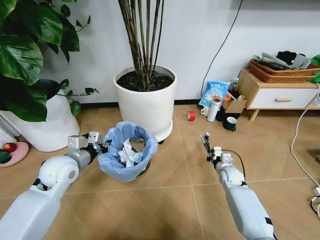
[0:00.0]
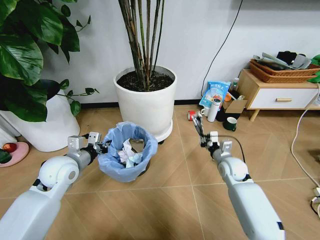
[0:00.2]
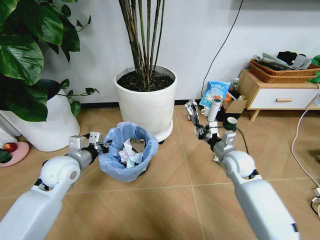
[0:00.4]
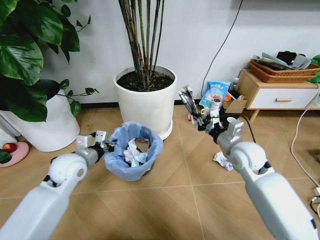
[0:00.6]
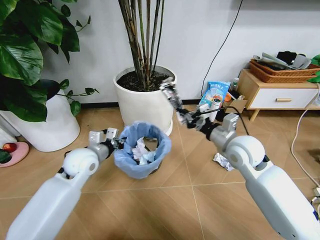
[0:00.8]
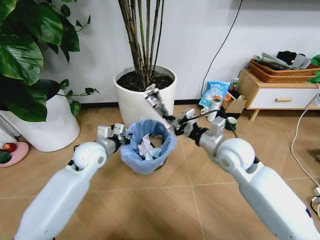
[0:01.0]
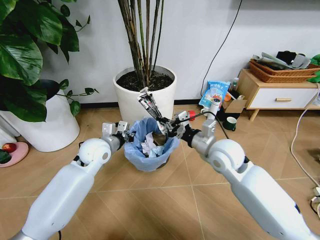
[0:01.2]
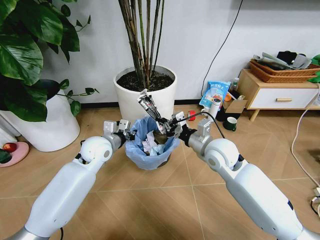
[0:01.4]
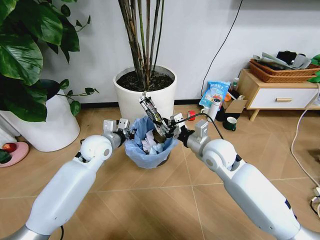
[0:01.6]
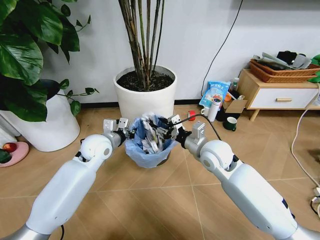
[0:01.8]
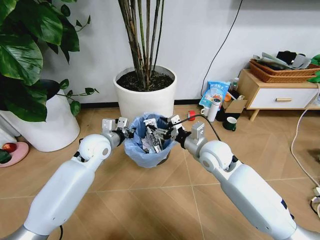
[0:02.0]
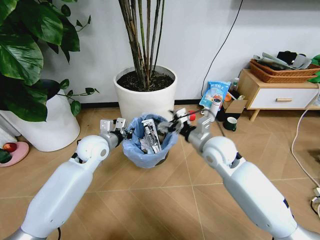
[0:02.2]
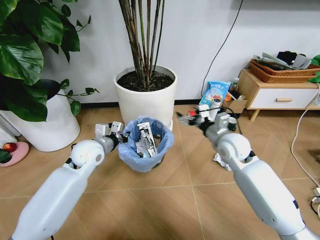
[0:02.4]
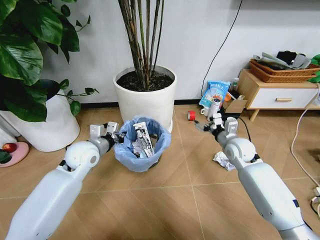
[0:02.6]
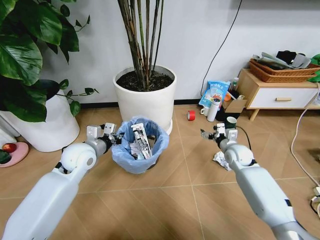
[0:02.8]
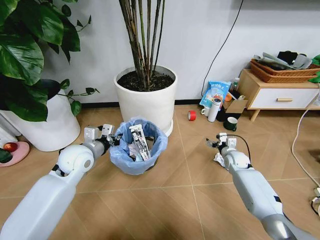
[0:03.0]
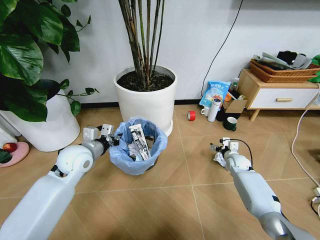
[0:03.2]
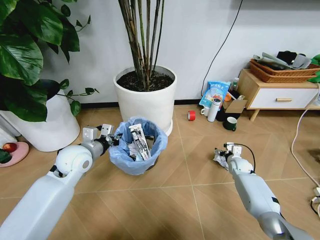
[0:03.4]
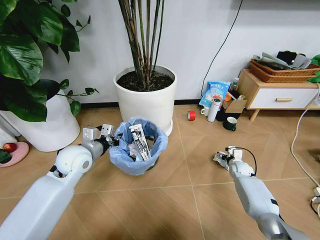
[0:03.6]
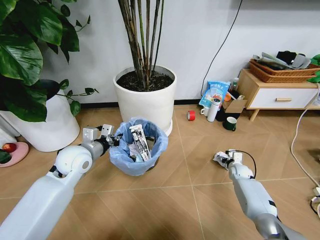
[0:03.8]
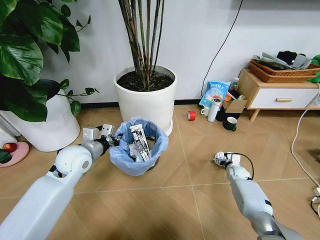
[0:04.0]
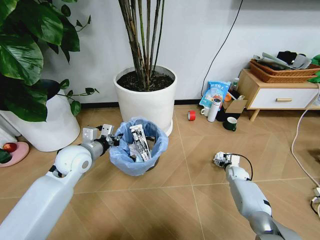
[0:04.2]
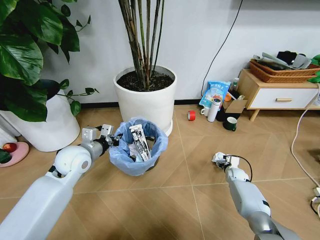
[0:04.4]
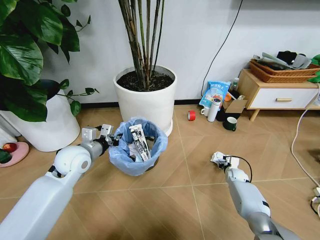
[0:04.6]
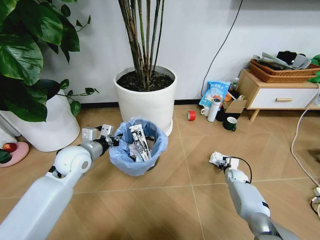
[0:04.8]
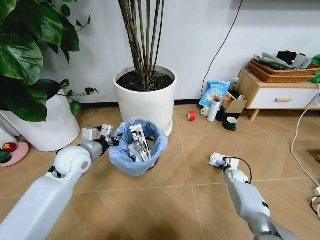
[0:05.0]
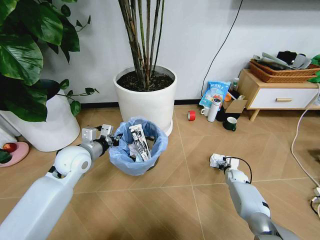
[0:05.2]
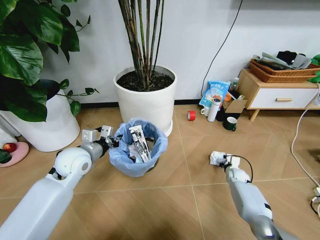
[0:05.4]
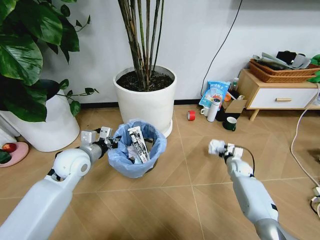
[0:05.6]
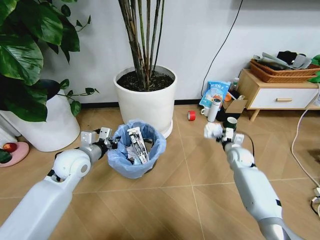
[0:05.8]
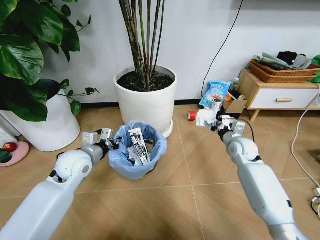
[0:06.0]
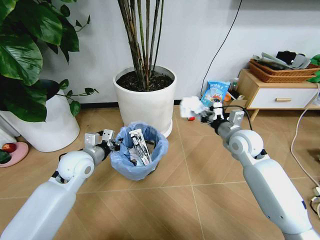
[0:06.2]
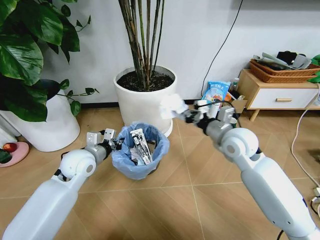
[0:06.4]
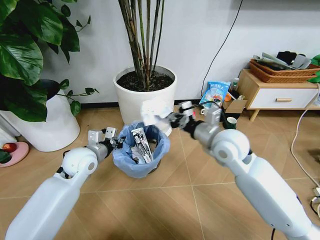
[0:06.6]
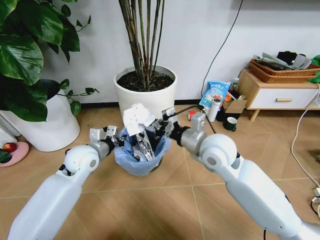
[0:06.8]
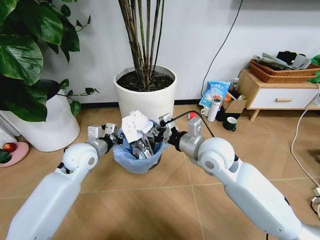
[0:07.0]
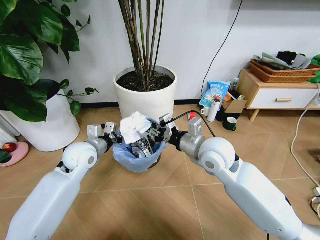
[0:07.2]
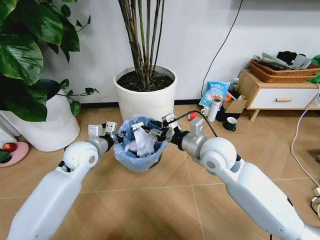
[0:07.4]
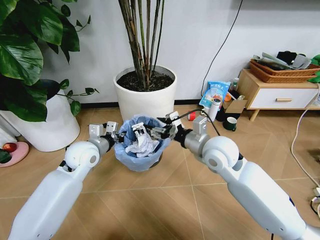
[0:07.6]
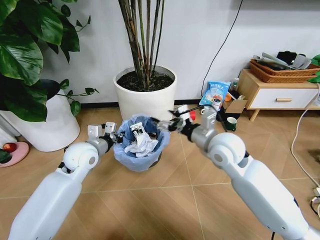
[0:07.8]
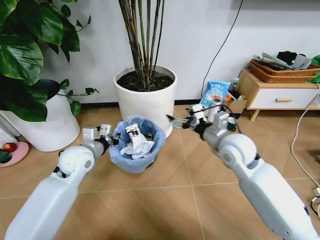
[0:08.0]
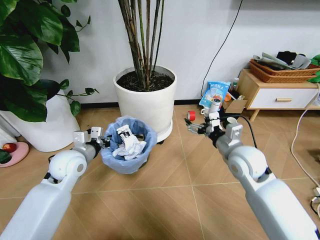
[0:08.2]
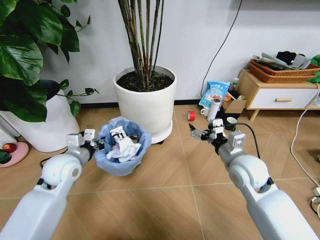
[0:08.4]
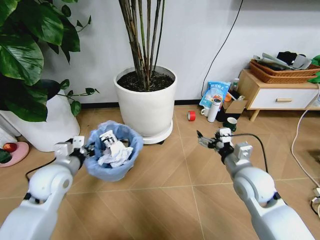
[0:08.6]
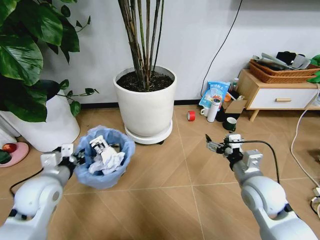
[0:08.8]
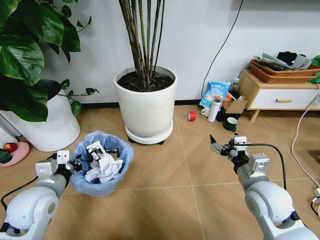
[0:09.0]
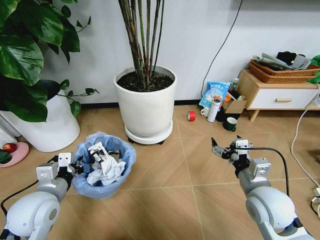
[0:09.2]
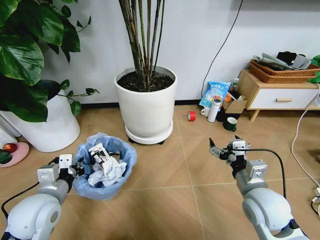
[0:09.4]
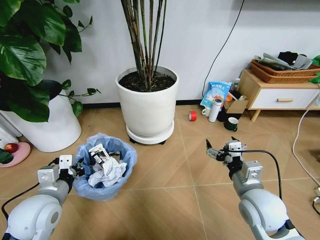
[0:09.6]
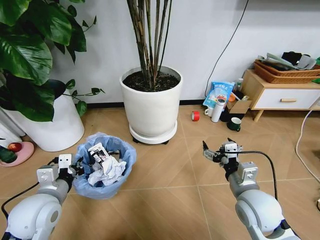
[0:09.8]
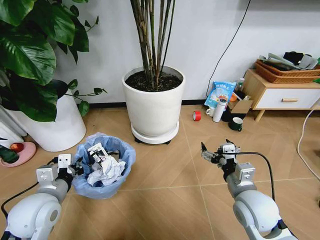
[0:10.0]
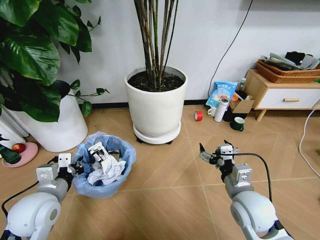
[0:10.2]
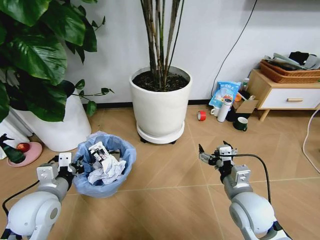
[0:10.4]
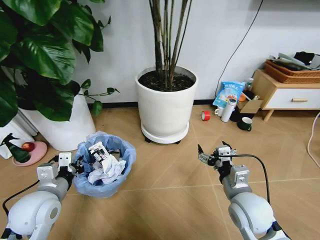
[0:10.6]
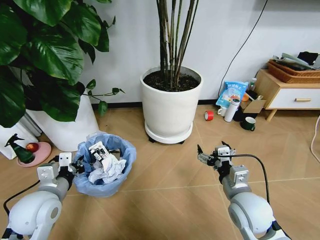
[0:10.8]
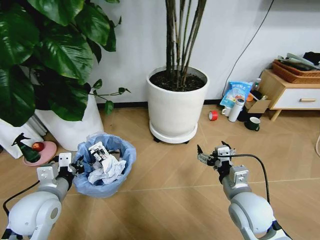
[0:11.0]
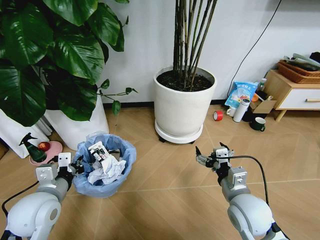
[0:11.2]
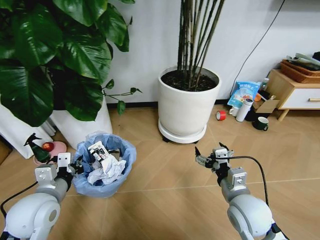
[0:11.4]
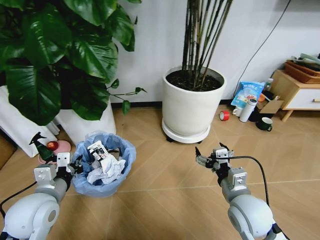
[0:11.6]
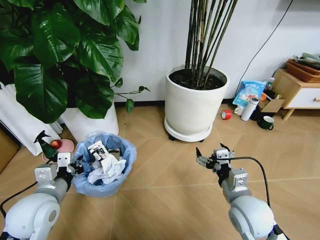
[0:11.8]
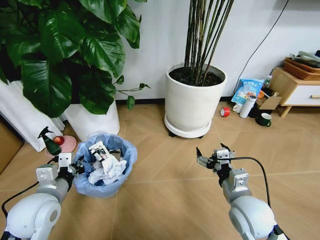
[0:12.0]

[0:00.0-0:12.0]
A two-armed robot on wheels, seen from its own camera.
Task of the whole recording: Pick up the trash bin and place the garbage on the floor into it.
0:00.0 to 0:01.6: The left gripper goes approximately 10 cm to the right and forward. The right gripper shifts about 30 cm upward and to the left.
0:01.6 to 0:03.0: The right gripper moves downward, to the right and forward, about 25 cm, and opens; the left gripper ends up roughly 5 cm from where it was.
0:03.0 to 0:04.4: The right gripper is displaced downward by about 10 cm.
0:04.4 to 0:06.0: The right gripper heads upward, covering approximately 20 cm, and closes its fingers.
0:06.0 to 0:07.6: The right gripper heads to the left, upward and backward, covering some 20 cm, and opens.
0:07.6 to 0:09.0: The left gripper travels backward and to the left by roughly 15 cm. The right gripper shifts about 15 cm to the right, backward and downward.
0:09.0 to 0:10.4: The right gripper shifts by approximately 5 cm.

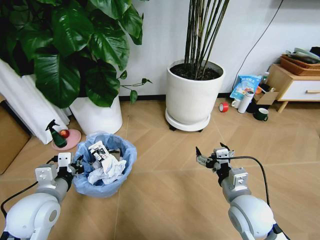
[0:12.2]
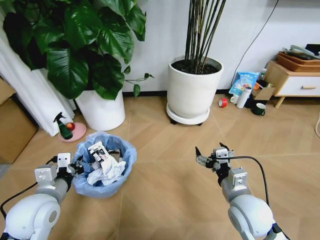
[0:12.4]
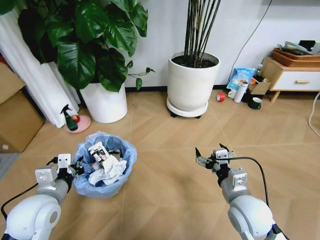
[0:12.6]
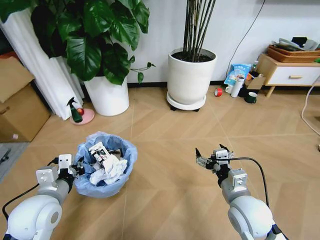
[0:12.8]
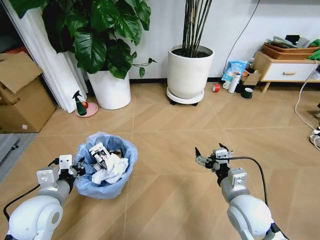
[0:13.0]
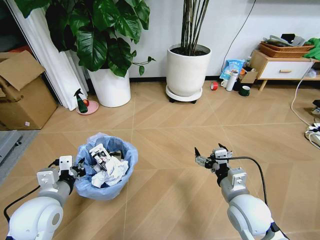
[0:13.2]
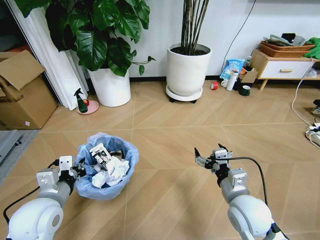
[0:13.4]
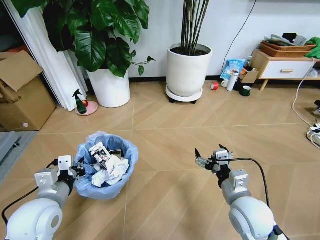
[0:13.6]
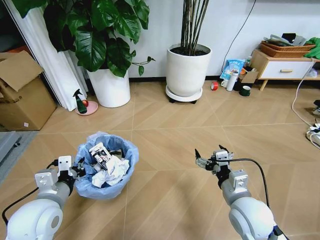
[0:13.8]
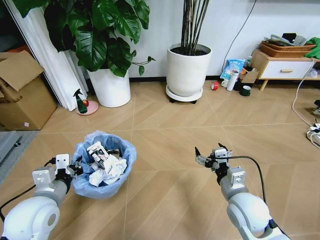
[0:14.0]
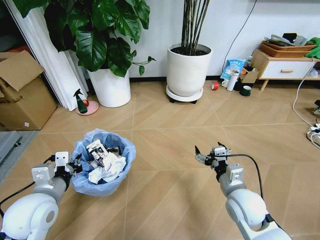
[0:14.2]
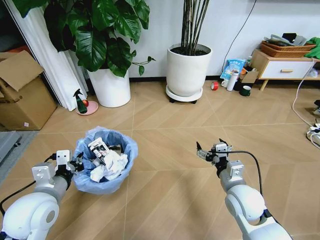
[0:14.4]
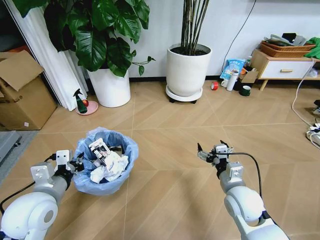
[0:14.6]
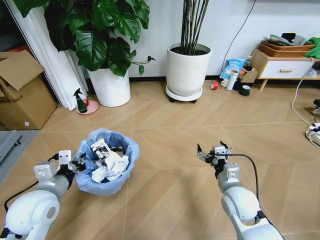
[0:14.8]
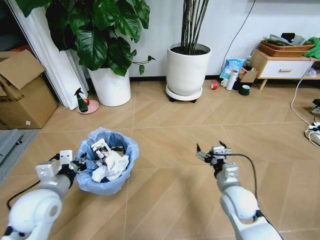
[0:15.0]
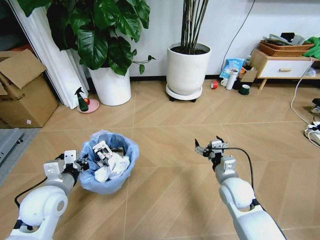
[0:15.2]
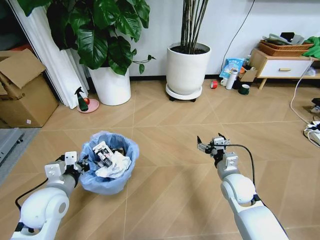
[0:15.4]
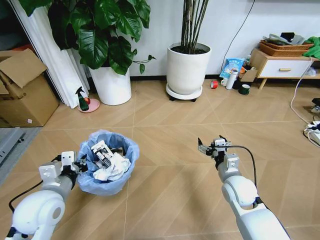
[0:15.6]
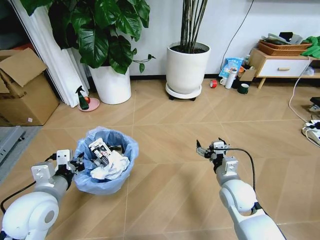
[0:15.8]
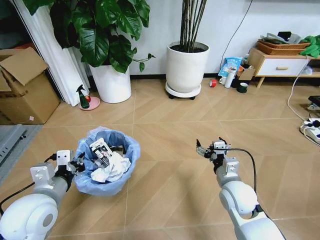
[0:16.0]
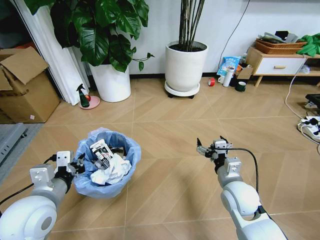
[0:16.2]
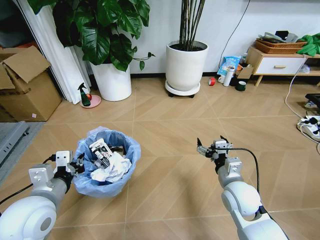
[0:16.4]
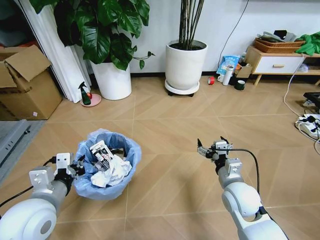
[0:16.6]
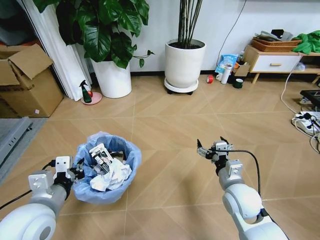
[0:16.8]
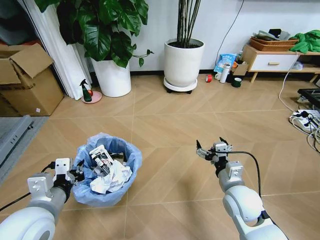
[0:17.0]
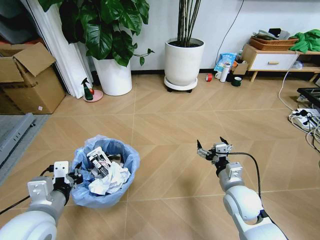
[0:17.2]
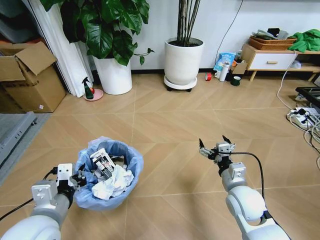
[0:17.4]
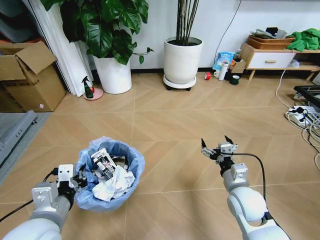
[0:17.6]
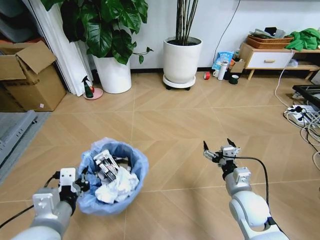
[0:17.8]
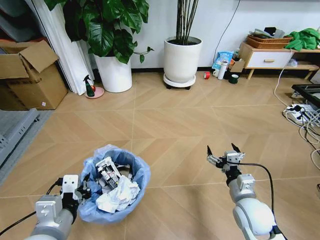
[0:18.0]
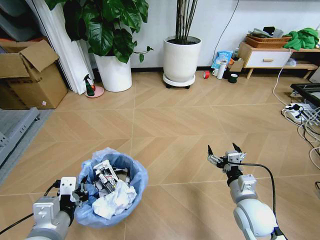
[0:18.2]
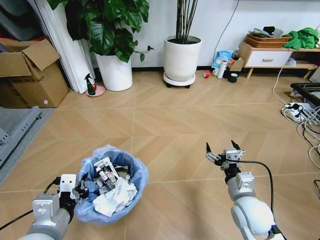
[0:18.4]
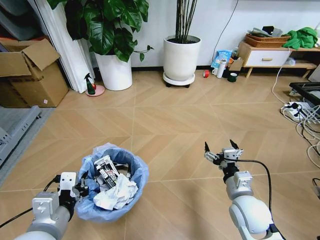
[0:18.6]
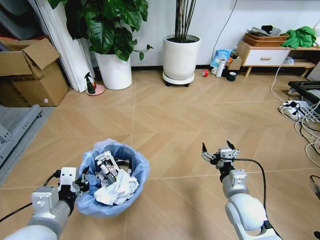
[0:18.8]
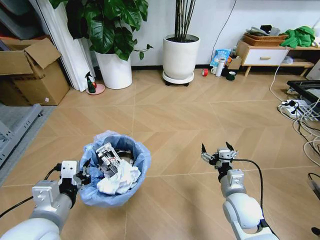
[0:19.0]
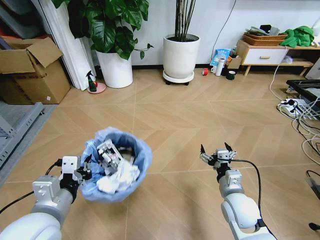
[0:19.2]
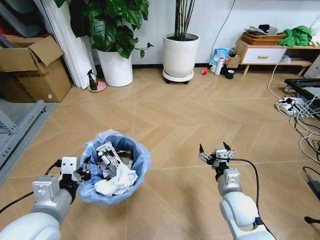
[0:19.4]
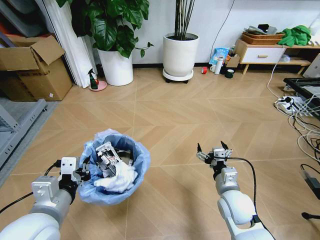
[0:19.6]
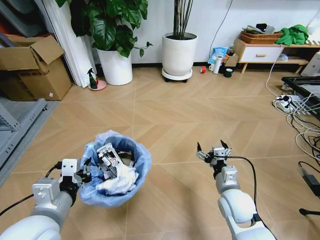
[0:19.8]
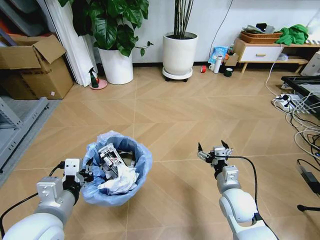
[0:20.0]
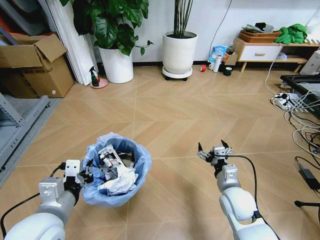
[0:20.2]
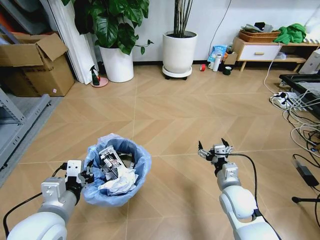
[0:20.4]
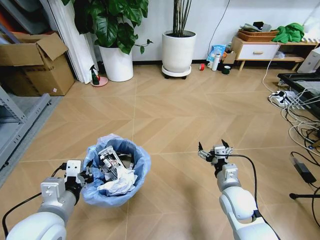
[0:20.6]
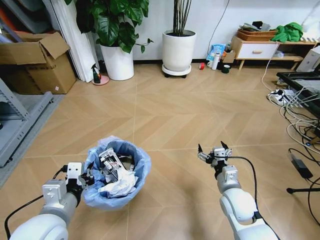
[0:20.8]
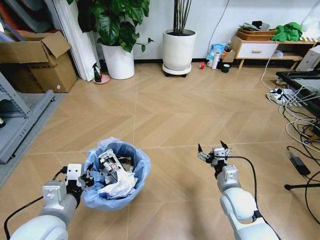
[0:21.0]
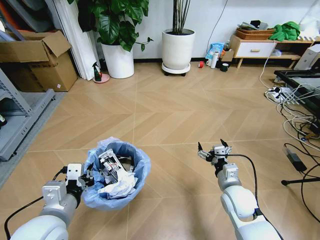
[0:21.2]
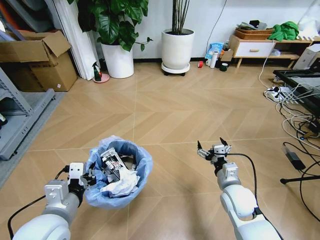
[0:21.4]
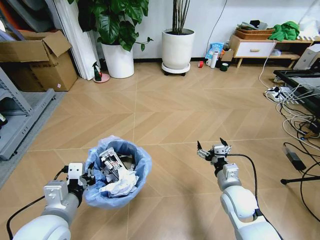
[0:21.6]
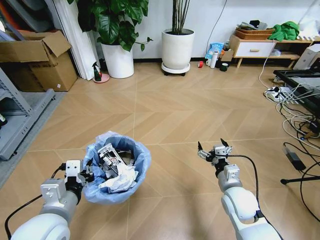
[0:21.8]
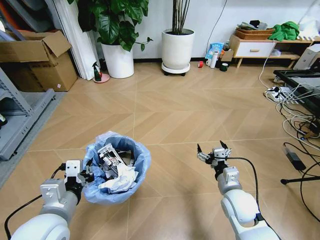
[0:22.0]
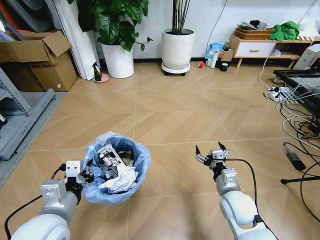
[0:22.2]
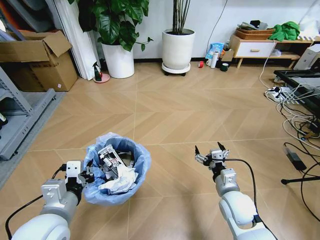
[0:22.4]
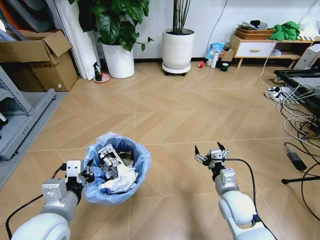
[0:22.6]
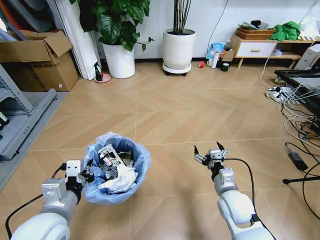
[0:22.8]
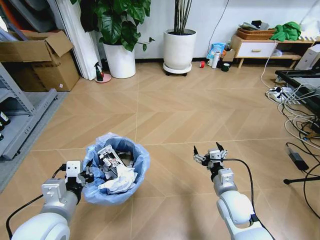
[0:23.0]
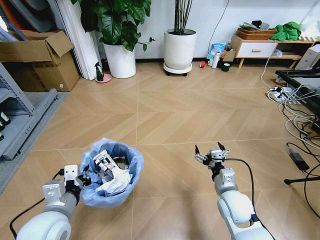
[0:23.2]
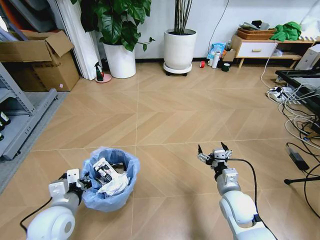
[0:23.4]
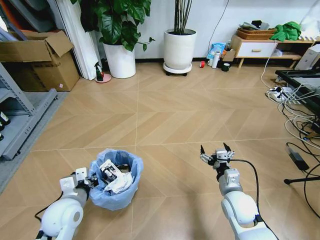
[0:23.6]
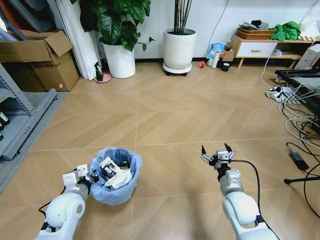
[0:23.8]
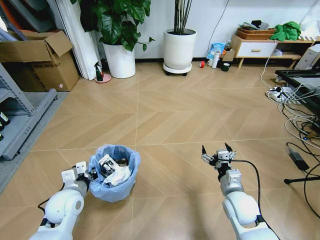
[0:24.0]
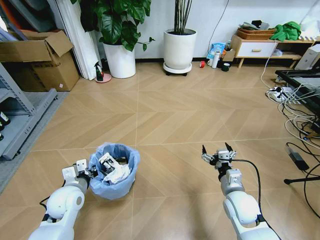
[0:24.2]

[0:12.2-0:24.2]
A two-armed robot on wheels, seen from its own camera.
Task of the whole recording: Pick up the trash bin and place the garbage on the floor into it.
0:13.8 to 0:15.2: The right gripper goes roughly 10 cm forward and downward.
0:15.2 to 0:16.6: The left gripper heads backward, covering approximately 5 cm.
0:16.6 to 0:18.2: The right gripper shifts by approximately 5 cm. Meanwhile the left gripper is displaced backward by approximately 5 cm.
0:18.2 to 0:19.8: The right gripper shifts by about 5 cm.
0:21.2 to 0:22.6: The grippers move only a little.
0:22.6 to 0:24.2: The left gripper travels forward and downward by about 15 cm.
